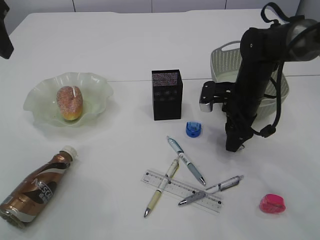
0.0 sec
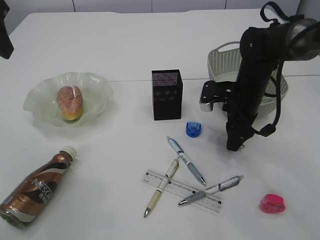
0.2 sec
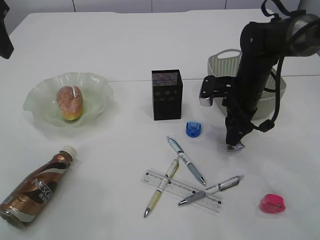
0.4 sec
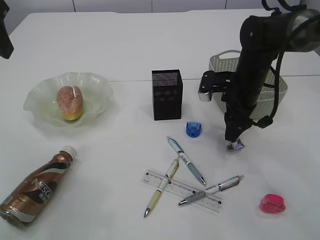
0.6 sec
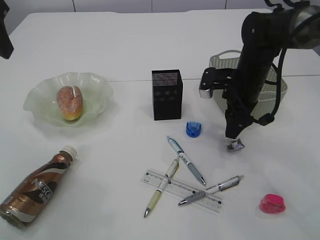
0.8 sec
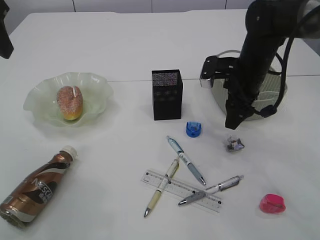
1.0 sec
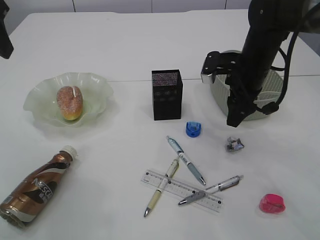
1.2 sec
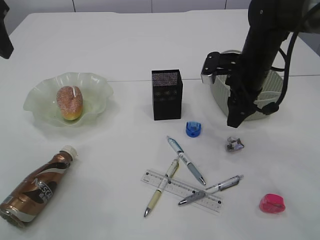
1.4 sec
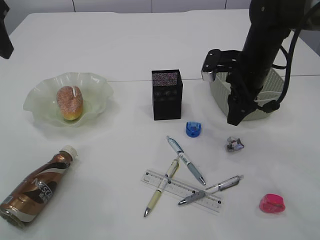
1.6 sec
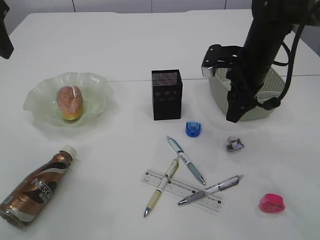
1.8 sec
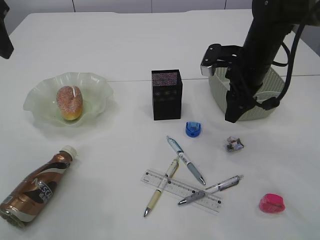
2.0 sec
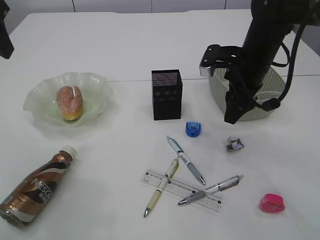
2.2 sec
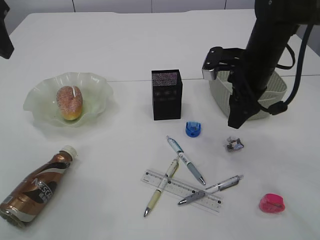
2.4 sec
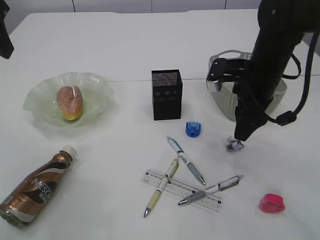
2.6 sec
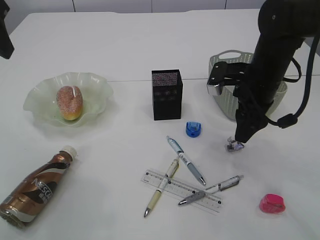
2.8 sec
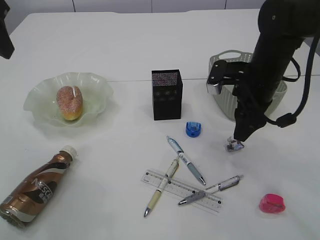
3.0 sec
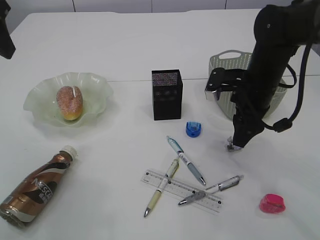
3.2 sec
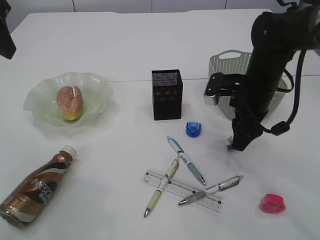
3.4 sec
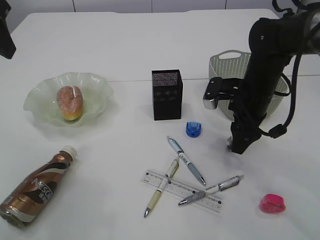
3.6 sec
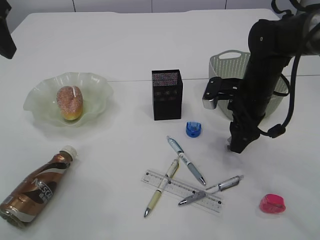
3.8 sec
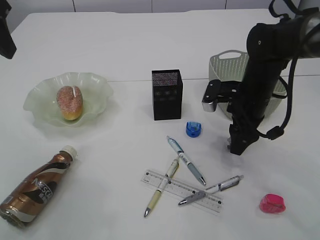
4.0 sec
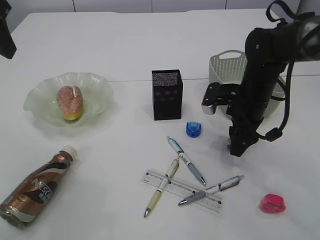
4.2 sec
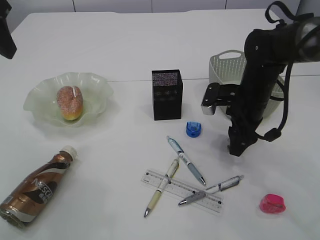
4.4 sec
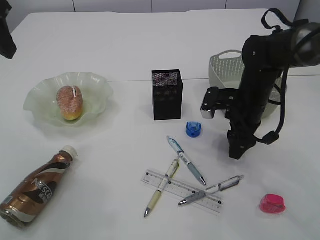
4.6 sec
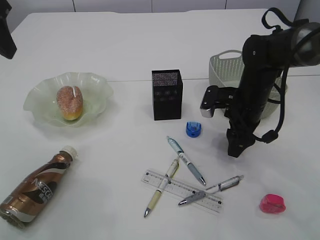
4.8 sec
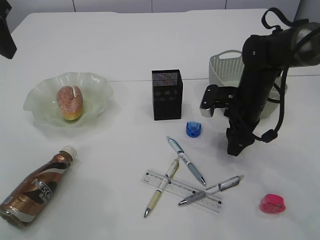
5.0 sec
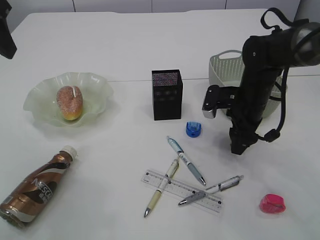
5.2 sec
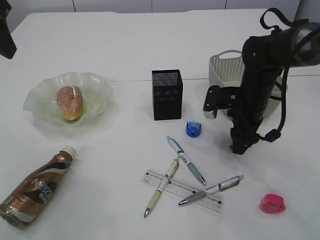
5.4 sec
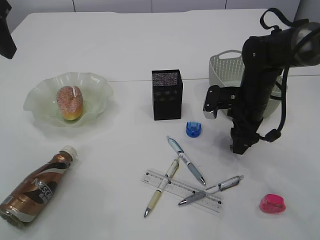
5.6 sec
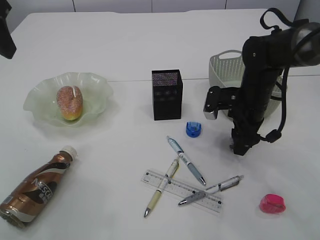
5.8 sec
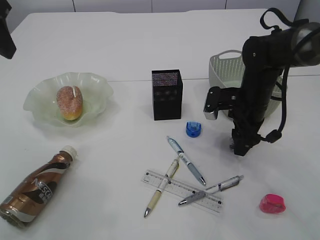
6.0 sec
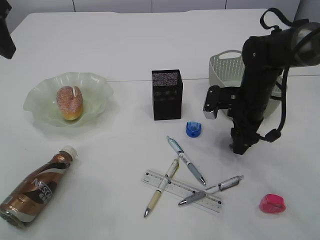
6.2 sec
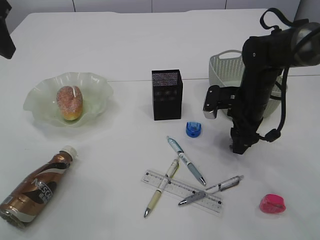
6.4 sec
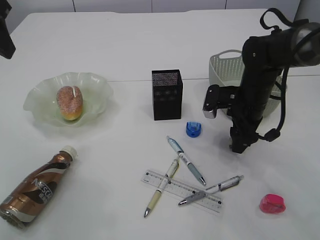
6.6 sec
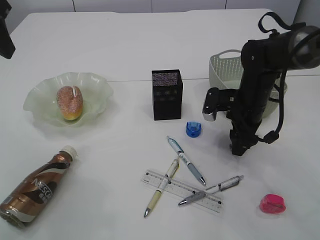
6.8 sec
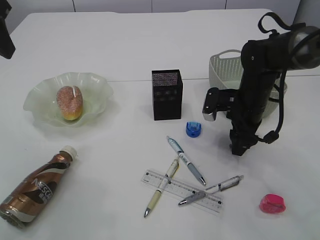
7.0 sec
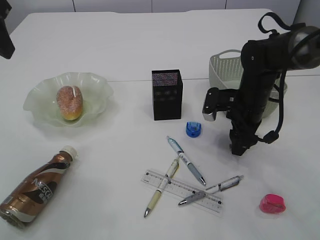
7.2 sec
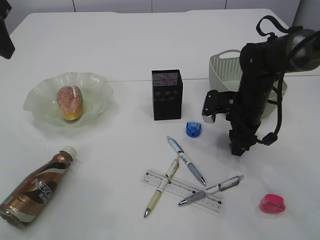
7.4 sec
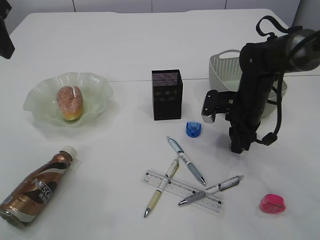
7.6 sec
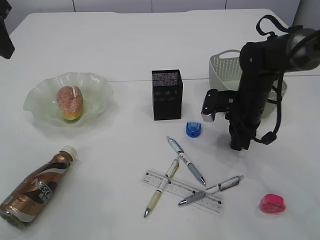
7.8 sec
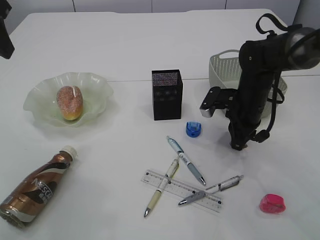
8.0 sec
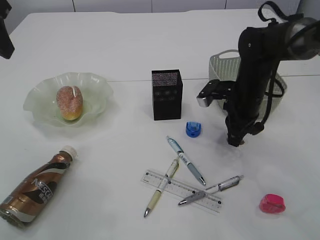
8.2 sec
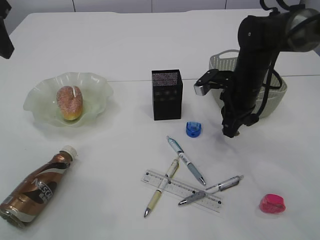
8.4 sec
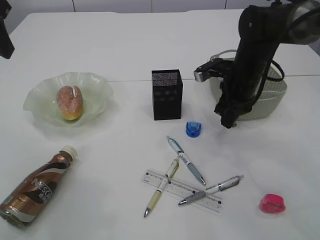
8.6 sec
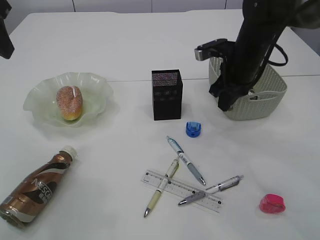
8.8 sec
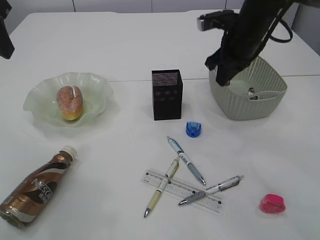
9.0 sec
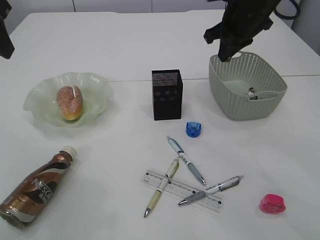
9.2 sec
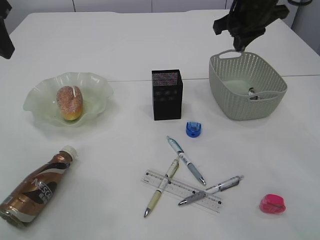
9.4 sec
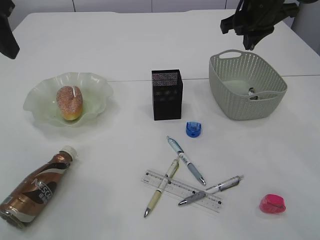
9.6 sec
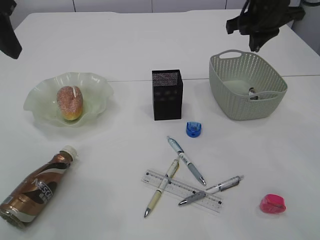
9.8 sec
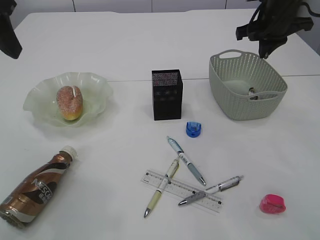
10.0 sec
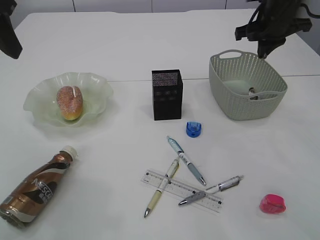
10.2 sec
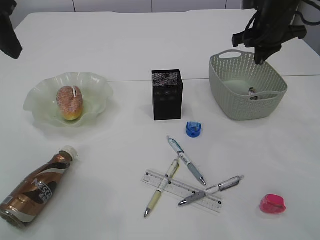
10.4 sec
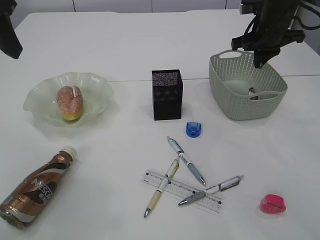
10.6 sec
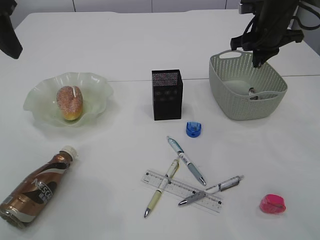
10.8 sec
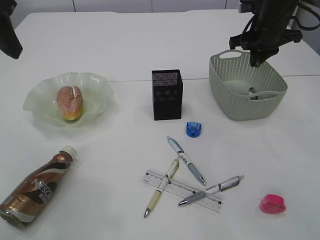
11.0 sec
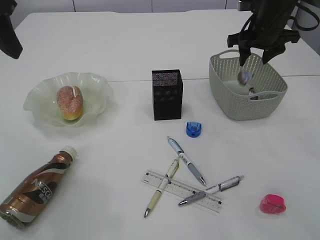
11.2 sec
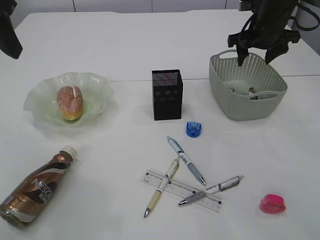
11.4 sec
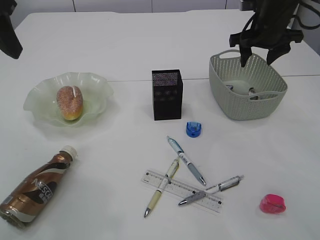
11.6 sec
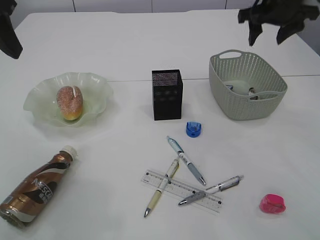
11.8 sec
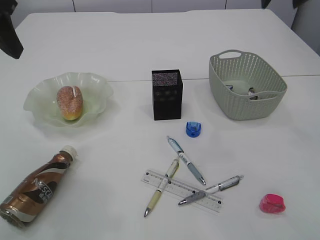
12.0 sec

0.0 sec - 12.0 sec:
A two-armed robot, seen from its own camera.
Step, 0.0 sec - 8.8 sec: Pick up the waste paper.
Step, 9.0 sec - 11.6 sec: Place the waste paper in the basket.
0.0 sec - 1.6 sec: The right gripper travels upward by some 5 cm.
1.6 sec - 3.0 sec: The grippers move only a little.
3.0 sec - 4.4 sec: The right gripper is displaced downward by roughly 5 cm.
4.4 sec - 6.0 sec: The grippers stay close to where they were, moving slightly.
6.0 sec - 7.6 sec: The right gripper closes up.
7.6 sec - 9.0 sec: The right gripper goes about 15 cm upward, and closes its fingers.
9.0 sec - 10.4 sec: The right gripper moves to the right, some 5 cm.
10.4 sec - 12.0 sec: The right gripper moves upward and backward, some 15 cm, and opens up.

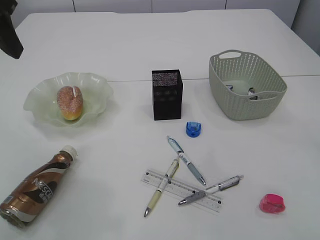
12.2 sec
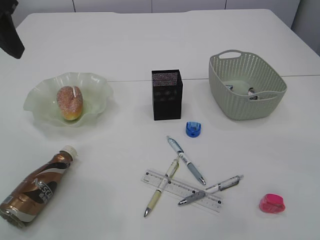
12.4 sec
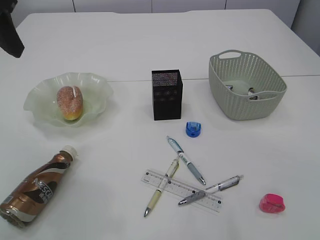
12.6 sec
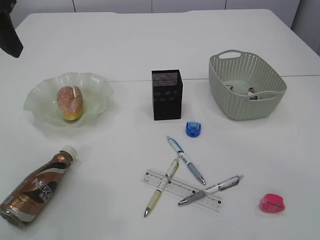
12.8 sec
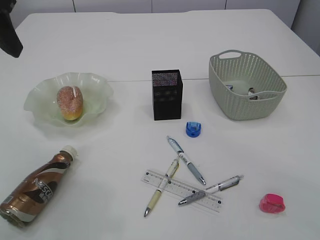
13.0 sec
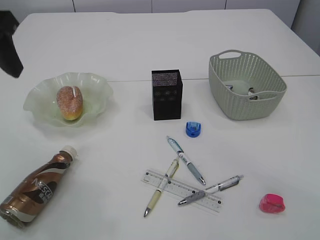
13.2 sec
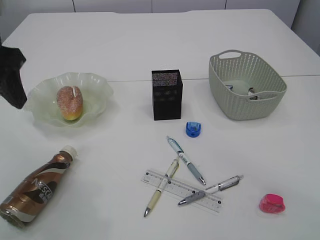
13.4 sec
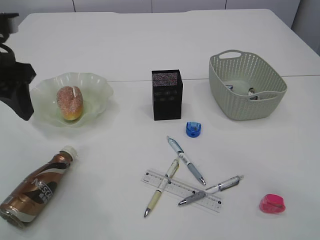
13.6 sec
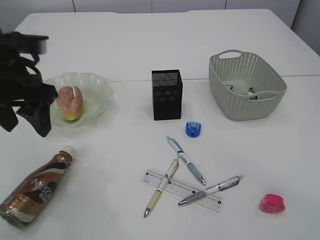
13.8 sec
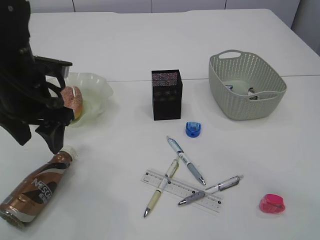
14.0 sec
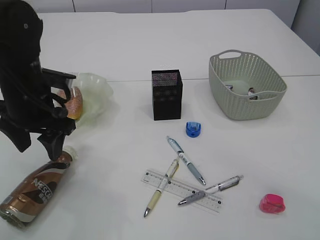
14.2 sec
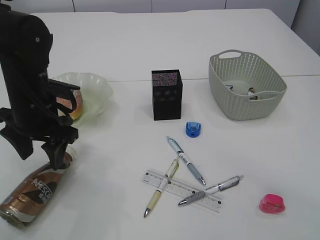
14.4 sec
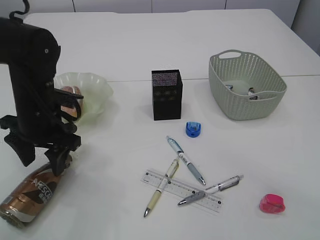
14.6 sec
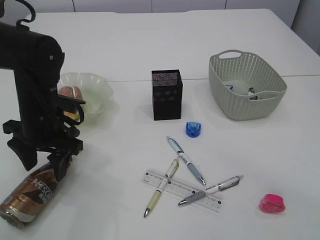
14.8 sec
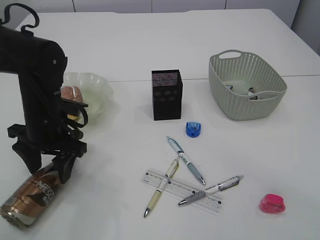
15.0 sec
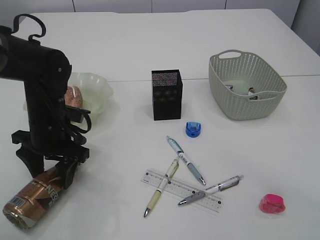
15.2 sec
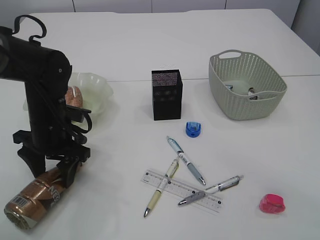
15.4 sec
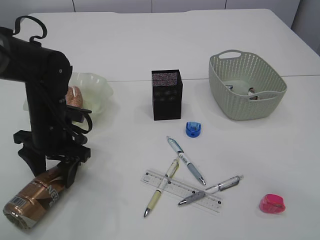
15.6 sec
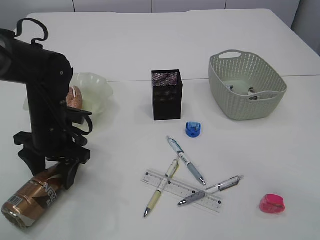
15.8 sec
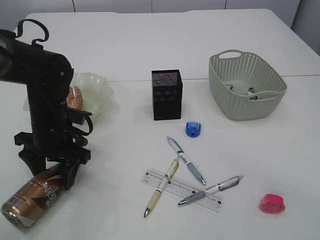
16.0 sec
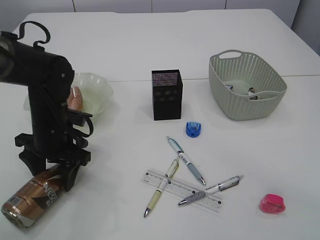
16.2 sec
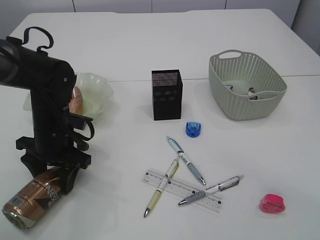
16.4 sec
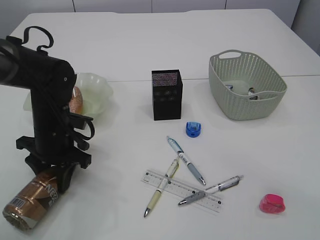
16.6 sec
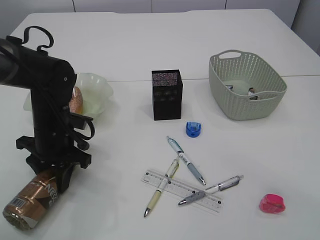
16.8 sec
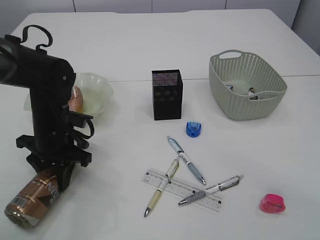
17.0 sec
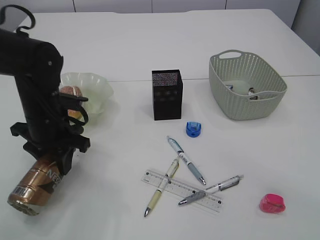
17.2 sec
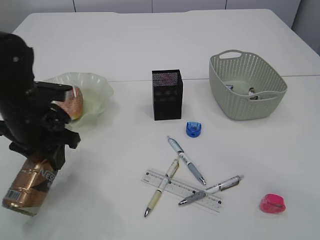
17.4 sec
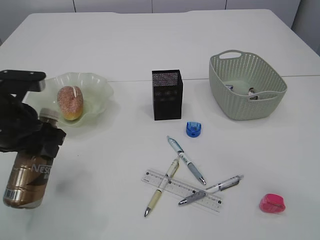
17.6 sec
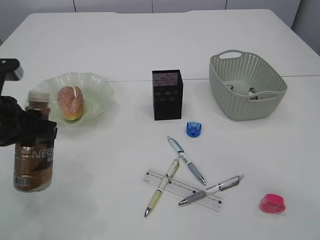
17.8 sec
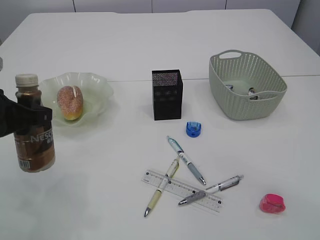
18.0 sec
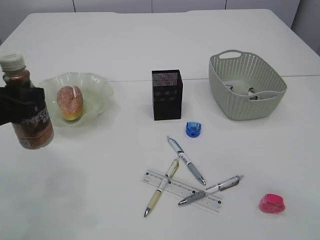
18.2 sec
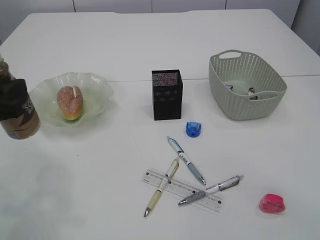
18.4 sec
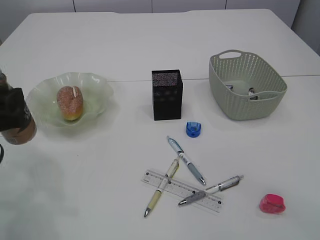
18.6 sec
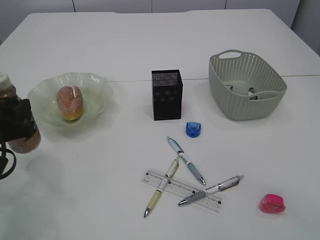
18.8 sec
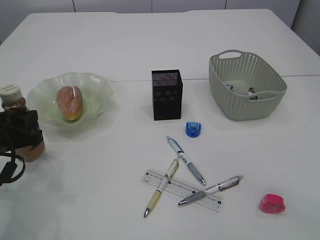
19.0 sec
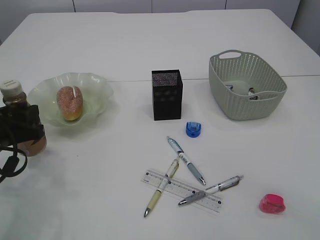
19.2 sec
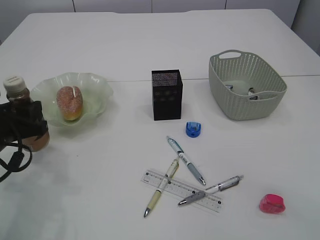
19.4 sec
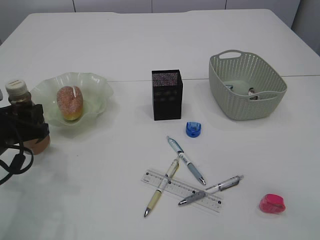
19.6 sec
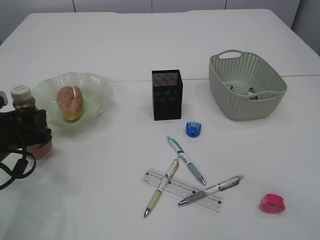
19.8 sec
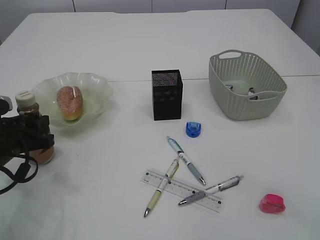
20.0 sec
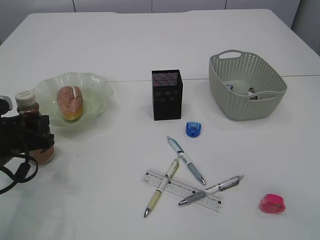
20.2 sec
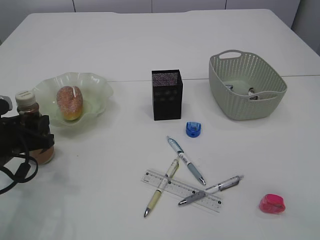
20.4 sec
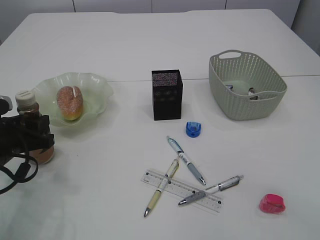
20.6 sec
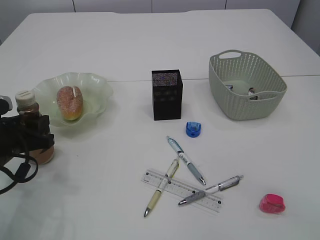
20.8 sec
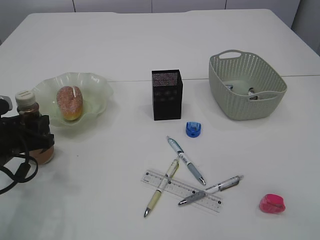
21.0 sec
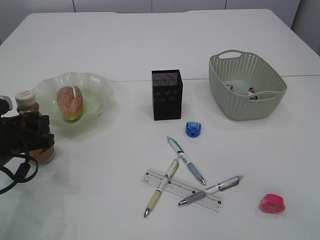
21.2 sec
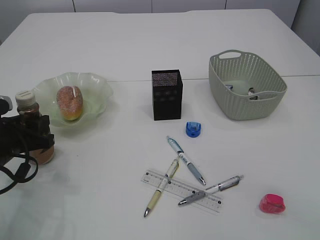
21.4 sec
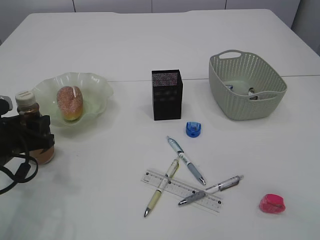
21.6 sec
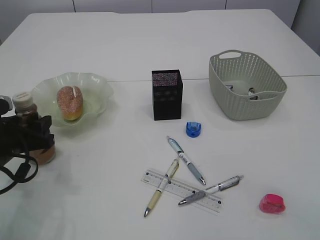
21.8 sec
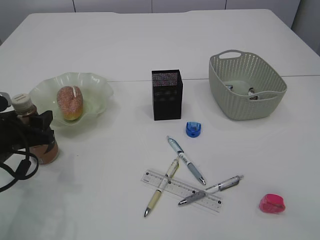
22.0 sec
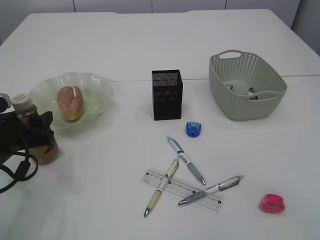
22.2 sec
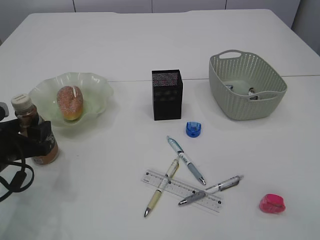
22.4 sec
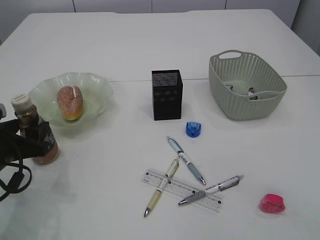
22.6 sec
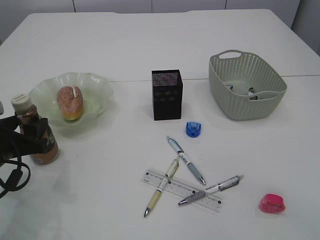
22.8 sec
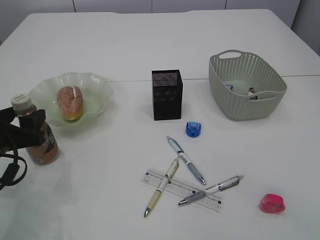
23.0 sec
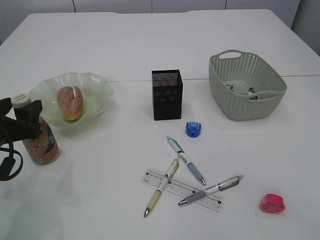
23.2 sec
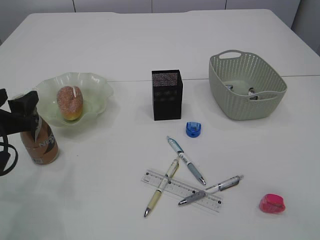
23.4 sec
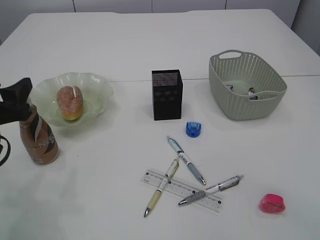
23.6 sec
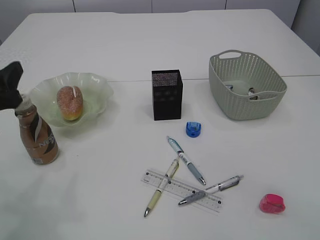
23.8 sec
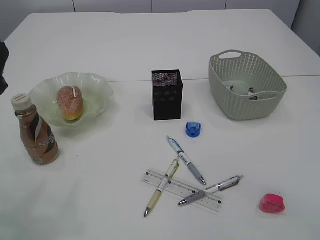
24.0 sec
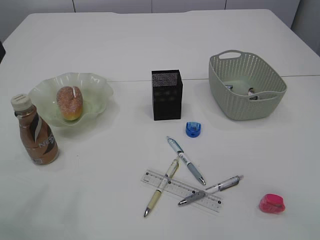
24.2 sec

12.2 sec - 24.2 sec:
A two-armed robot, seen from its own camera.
Step, 12.2 sec - 17.4 sec: Pick up the bottle with the left arm.
Step, 17.6 sec - 23.8 sec: Place the bottle.
12.2 sec - 13.8 sec: The left gripper shifts some 10 cm downward.
13.8 sec - 15.2 sec: The left gripper heads downward, covering about 15 cm.
15.2 sec - 16.6 sec: The grippers make only small movements.
16.6 sec - 18.2 sec: The left gripper is displaced upward, backward and to the left by some 15 cm.
18.2 sec - 19.8 sec: The left gripper moves downward, some 10 cm.
19.8 sec - 21.2 sec: Neither gripper changes place.
21.2 sec - 22.6 sec: The grippers move only a little.
22.6 sec - 24.2 sec: The left gripper heads upward, covering approximately 15 cm.
